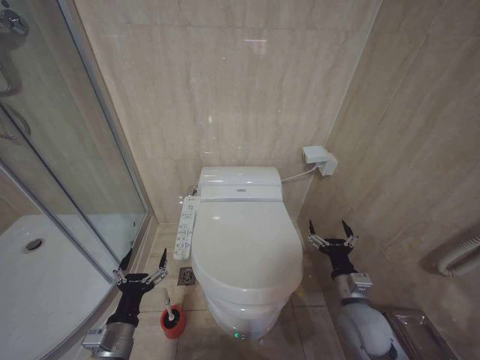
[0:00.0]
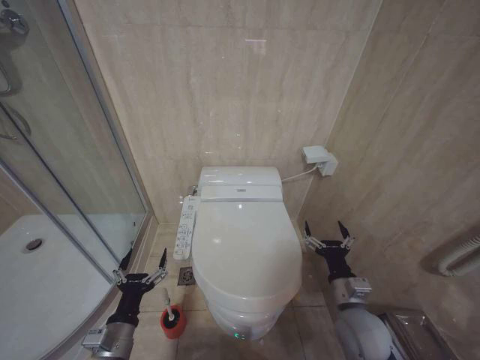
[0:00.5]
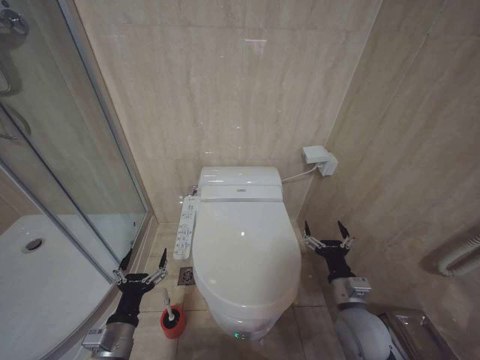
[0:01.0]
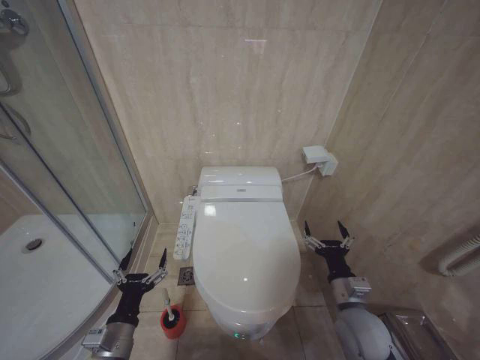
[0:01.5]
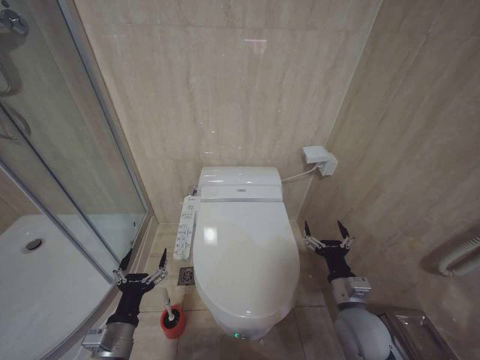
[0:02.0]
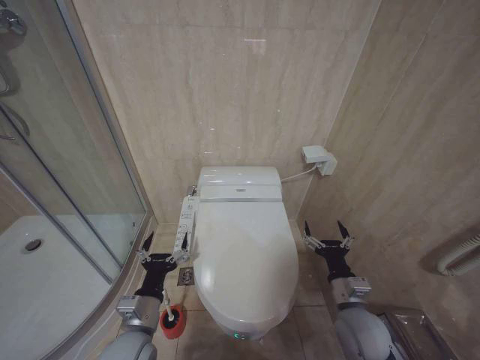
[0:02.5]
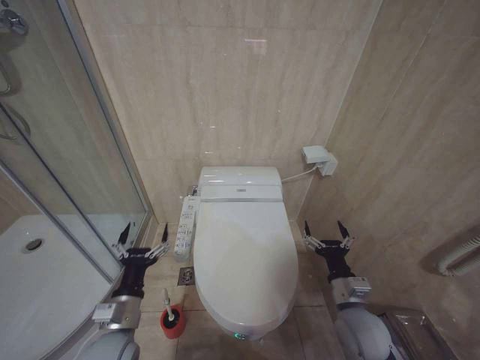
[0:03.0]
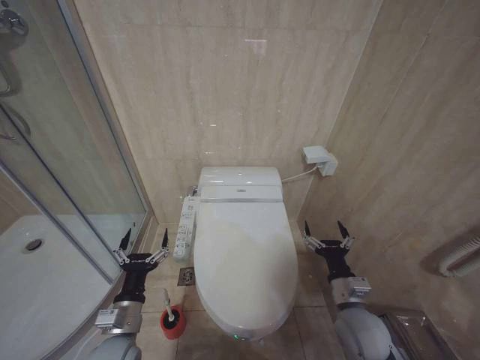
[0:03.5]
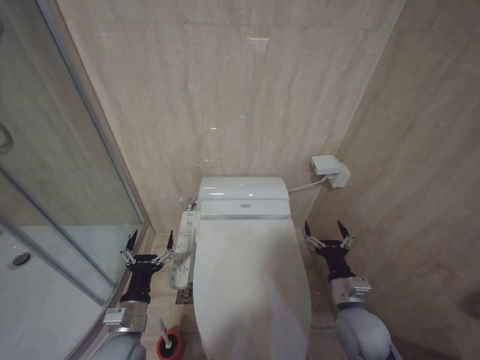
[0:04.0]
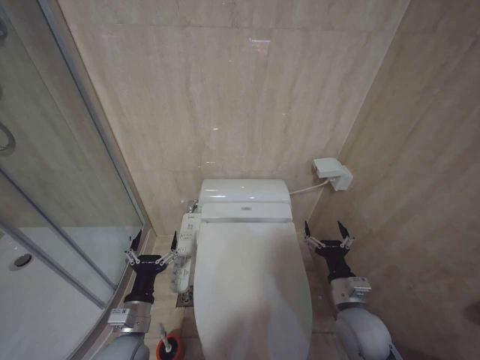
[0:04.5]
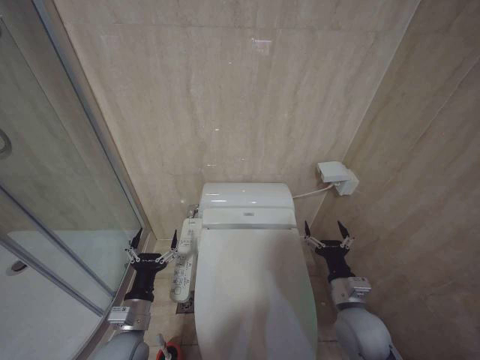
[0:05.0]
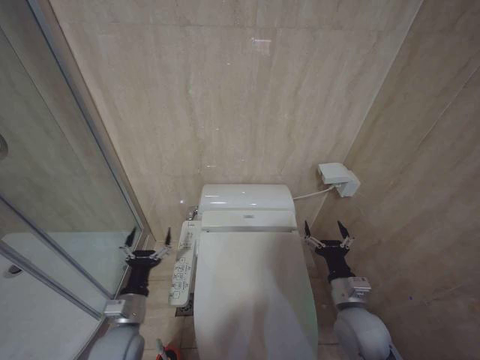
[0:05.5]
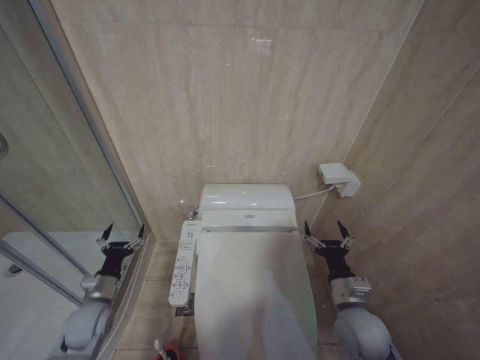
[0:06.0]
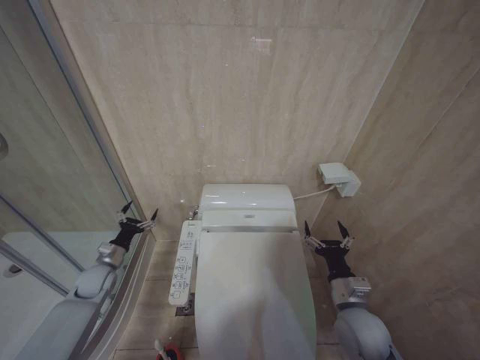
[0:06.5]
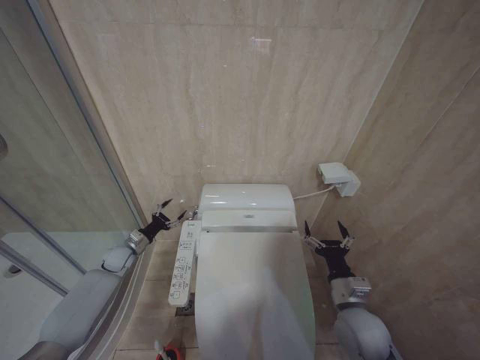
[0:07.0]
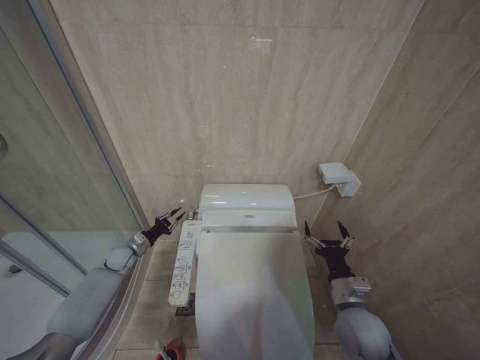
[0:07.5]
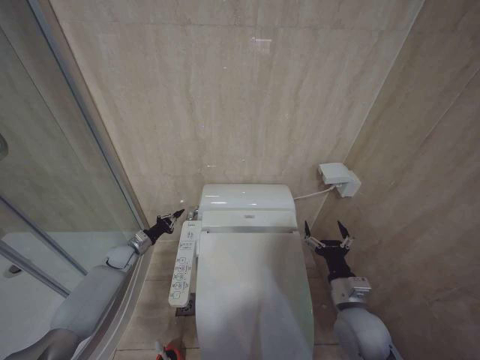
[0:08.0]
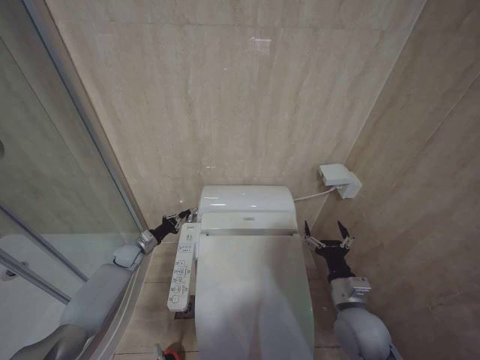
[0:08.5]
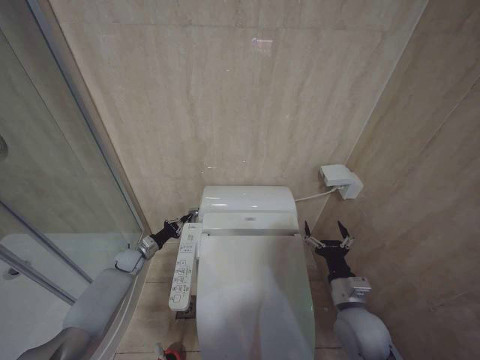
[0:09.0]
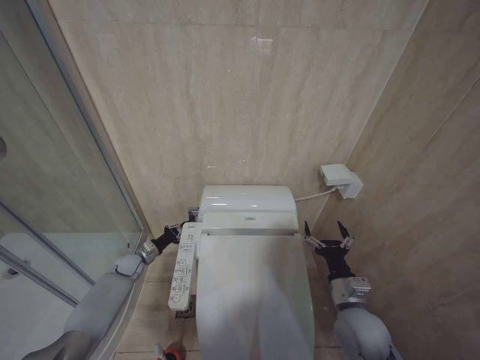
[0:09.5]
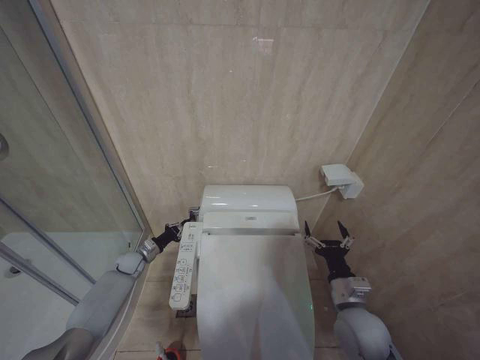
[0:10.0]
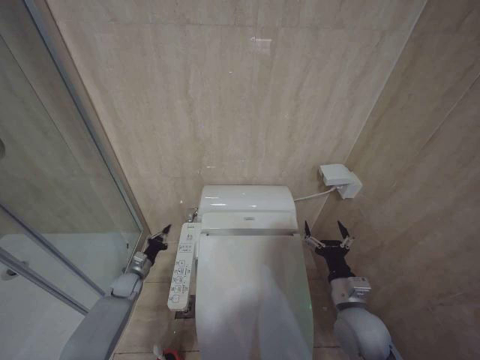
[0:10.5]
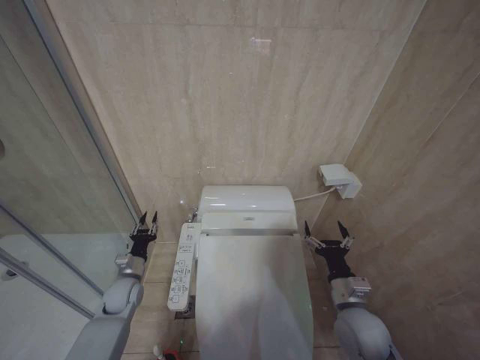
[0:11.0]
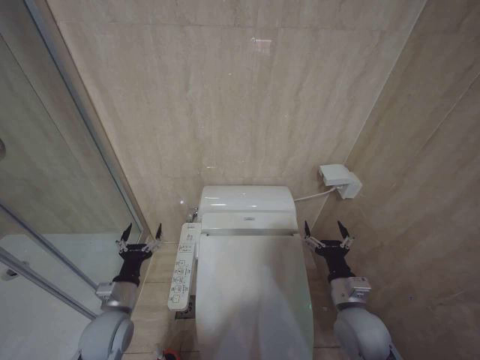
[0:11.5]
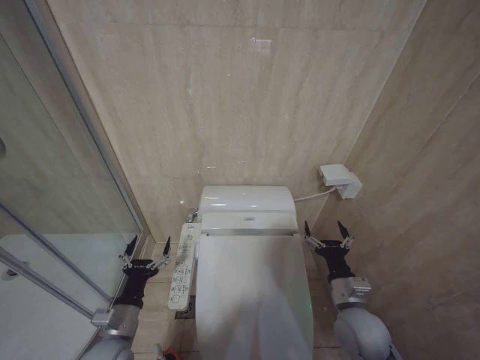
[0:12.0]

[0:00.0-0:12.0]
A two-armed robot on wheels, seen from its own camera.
Task of the whole recording: Open the toilet lid, clean the toilet bowl with a toilet brush, close the toilet lid, and flush.
0:00.0 to 0:02.0: The grippers stay close to where they were, moving slightly.
0:04.0 to 0:06.0: The left gripper shifts roughly 15 cm to the left and forward.
0:06.0 to 0:08.0: The left gripper shifts some 20 cm forward, and closes up.
0:08.0 to 0:10.0: The grippers move only a little.
0:10.0 to 0:12.0: The left gripper moves backward, some 25 cm, and opens up.

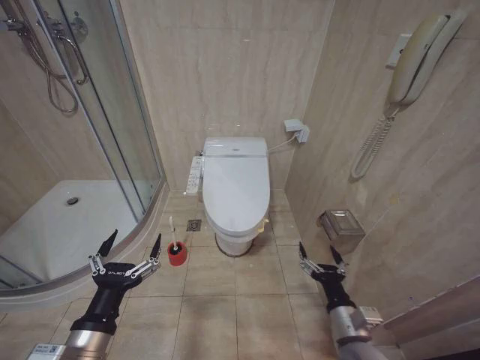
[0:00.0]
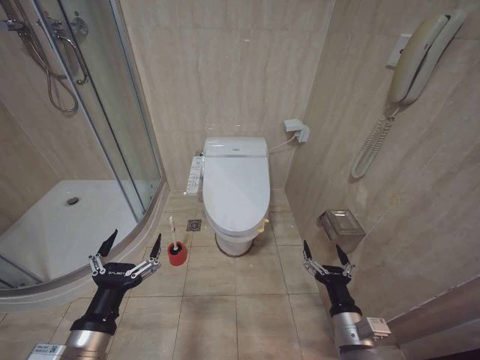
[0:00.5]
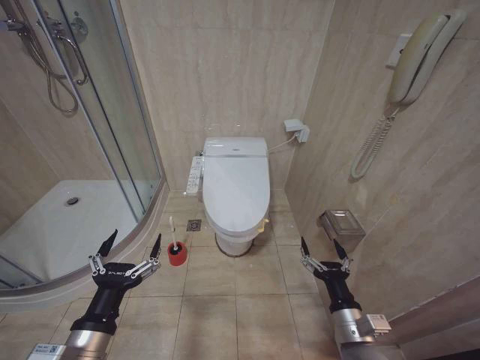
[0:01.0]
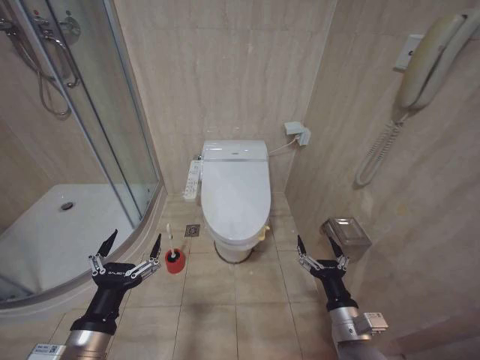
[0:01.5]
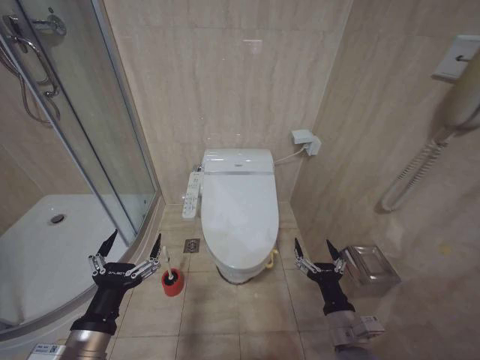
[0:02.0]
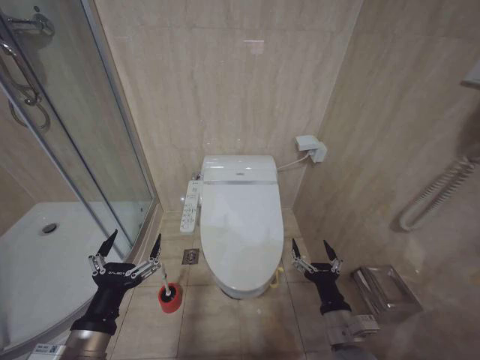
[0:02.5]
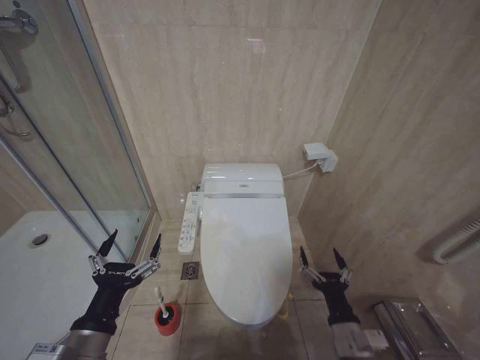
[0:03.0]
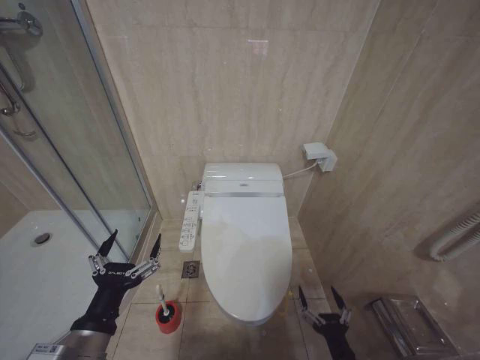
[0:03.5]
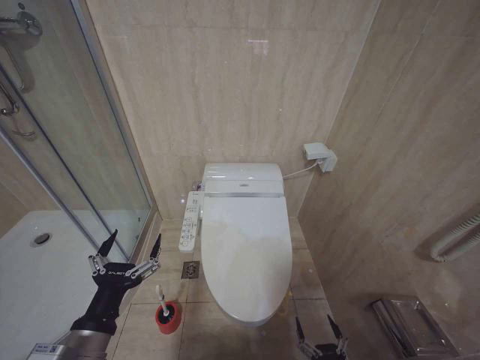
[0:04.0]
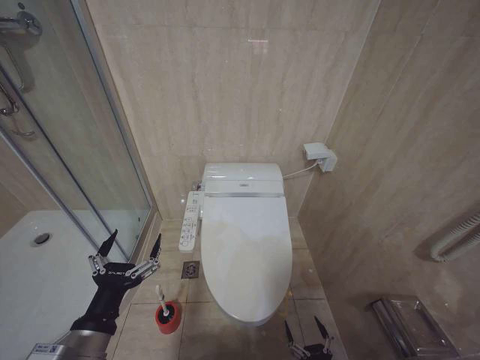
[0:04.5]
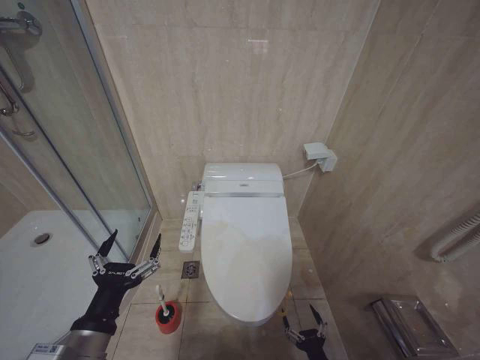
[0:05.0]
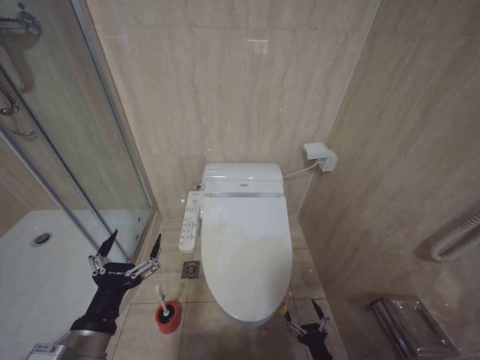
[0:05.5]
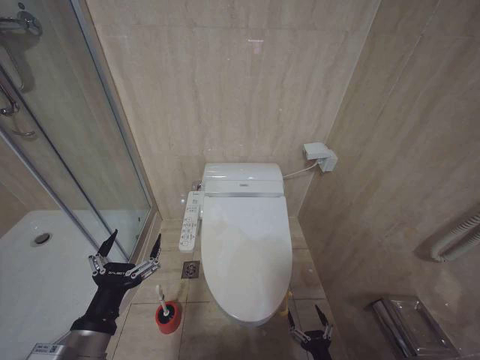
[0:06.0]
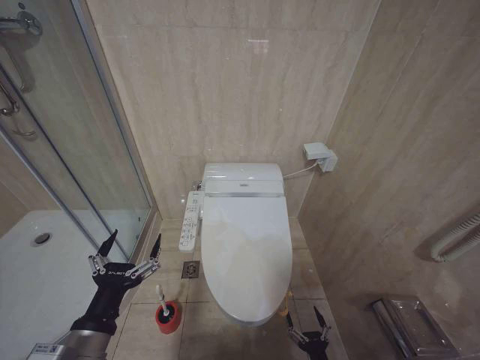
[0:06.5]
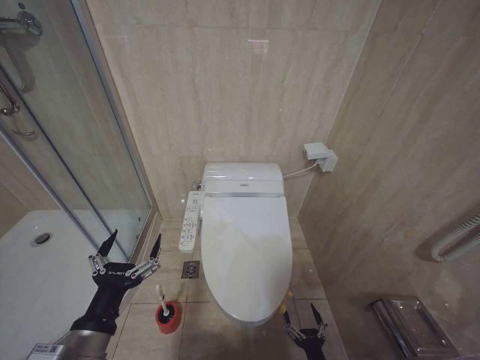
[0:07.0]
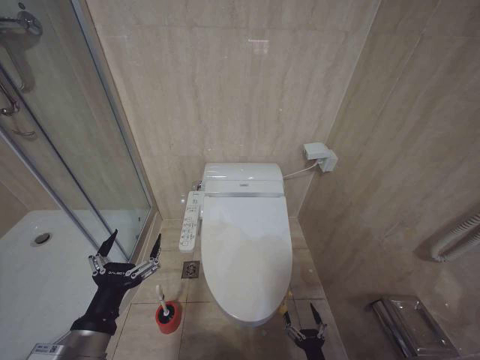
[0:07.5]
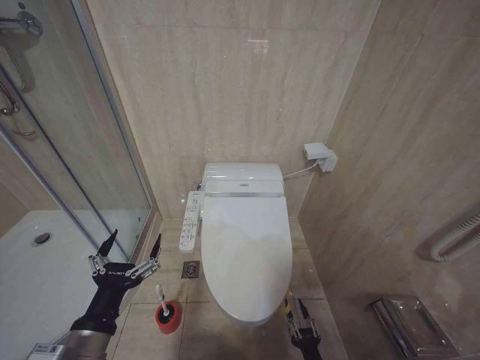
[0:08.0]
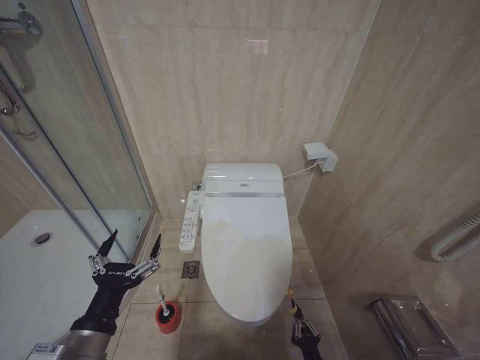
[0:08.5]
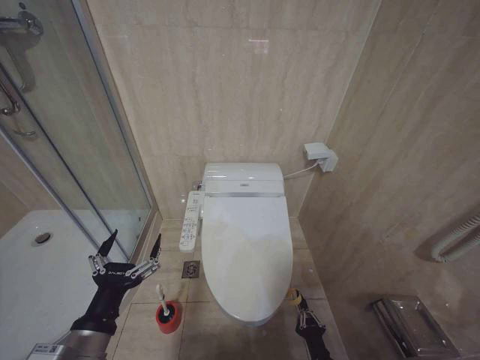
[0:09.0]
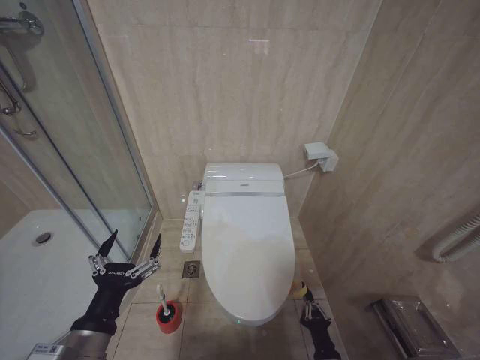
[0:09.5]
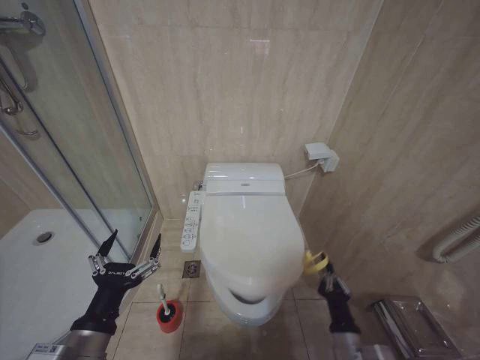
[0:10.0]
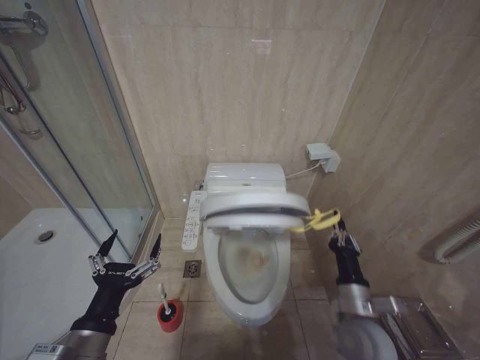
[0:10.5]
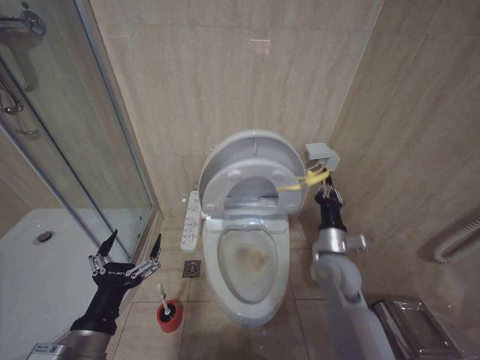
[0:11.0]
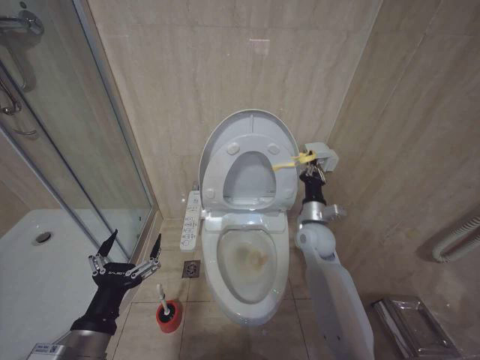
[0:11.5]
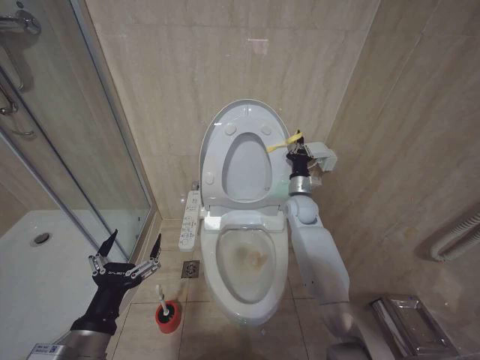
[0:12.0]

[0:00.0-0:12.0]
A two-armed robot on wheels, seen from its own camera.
Task of the whole recording: Open the toilet lid, clean the toilet bowl with a toilet brush, close the toilet lid, and flush.
0:02.0 to 0:04.0: The right gripper goes some 20 cm downward and backward.
0:08.0 to 0:10.0: The right gripper travels upward by roughly 15 cm, and closes.
0:10.0 to 0:12.0: The right gripper moves forward and upward, some 40 cm.

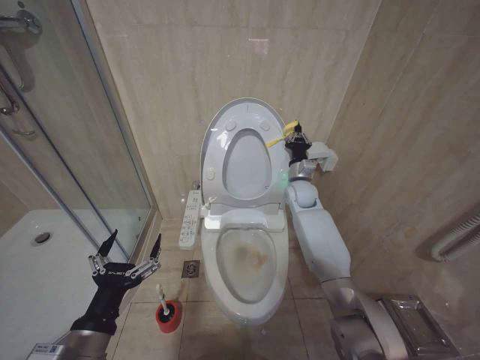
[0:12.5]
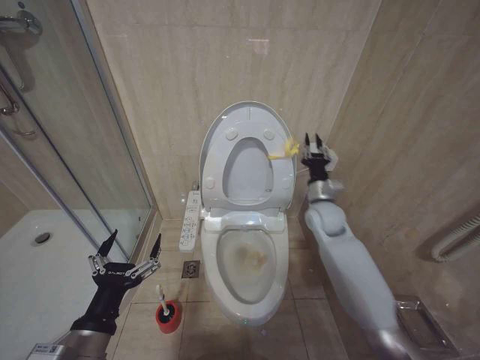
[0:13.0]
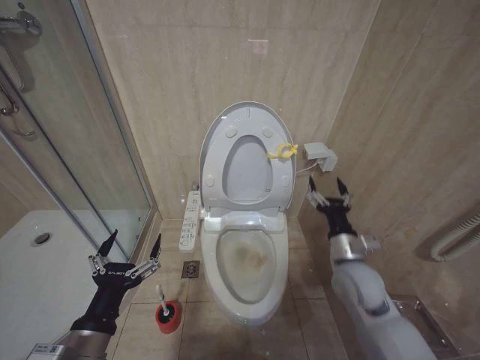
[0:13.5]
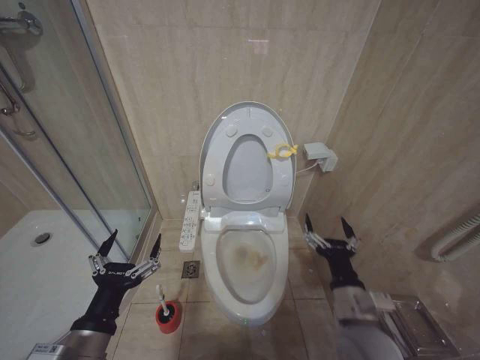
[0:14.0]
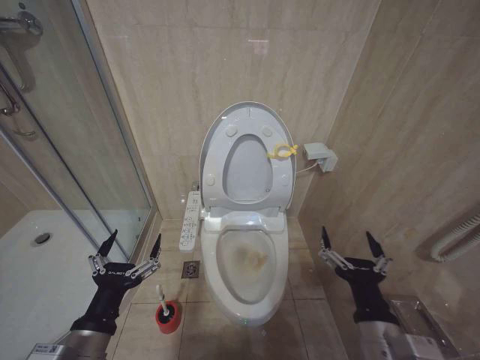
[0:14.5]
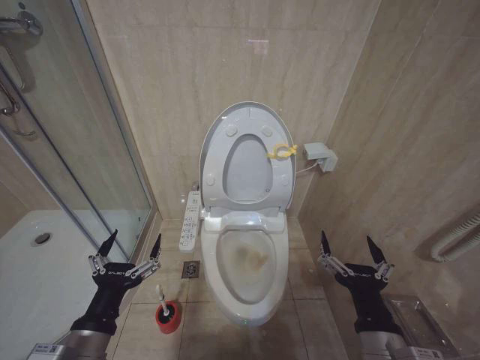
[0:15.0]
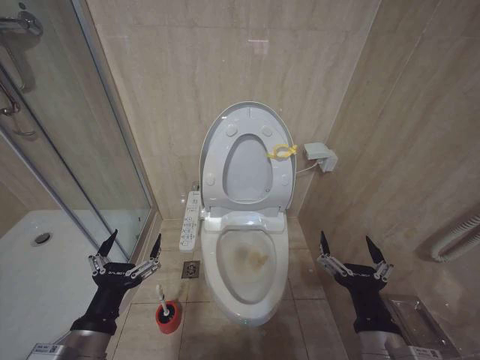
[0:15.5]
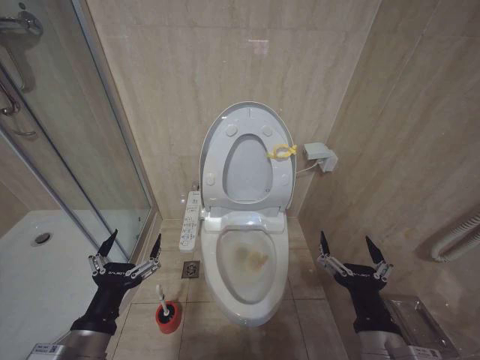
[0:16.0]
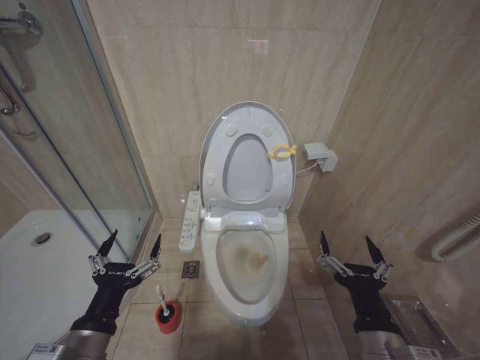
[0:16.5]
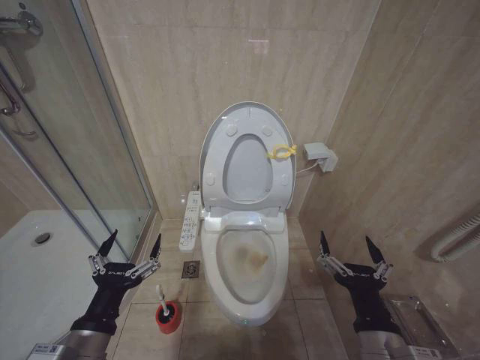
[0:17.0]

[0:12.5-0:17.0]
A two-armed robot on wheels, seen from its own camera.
Task of the whole recording: Open the toilet lid, clean the toilet bowl with a toilet brush, close the toilet lid, and flush.
0:12.5 to 0:14.5: The right gripper goes about 40 cm backward, and opens its fingers.
0:14.5 to 0:17.0: There are only small adjustments of the grippers.
